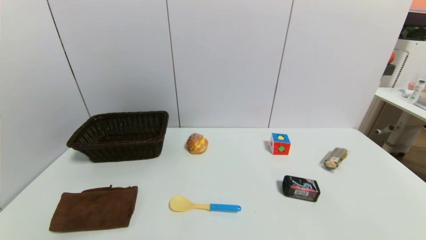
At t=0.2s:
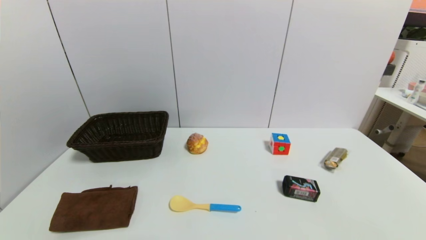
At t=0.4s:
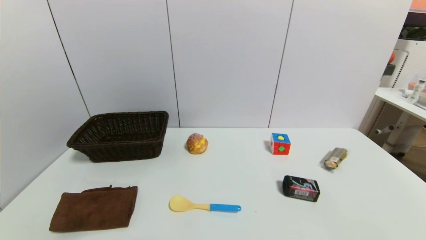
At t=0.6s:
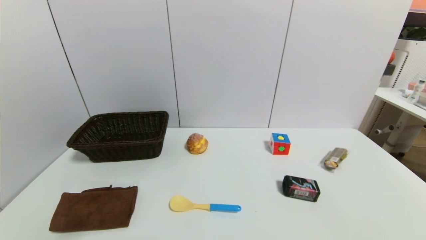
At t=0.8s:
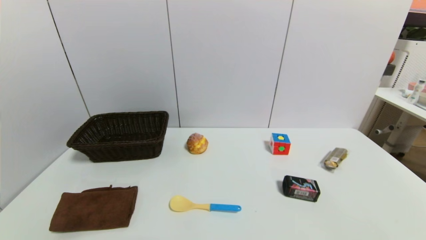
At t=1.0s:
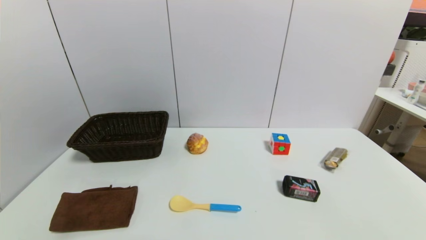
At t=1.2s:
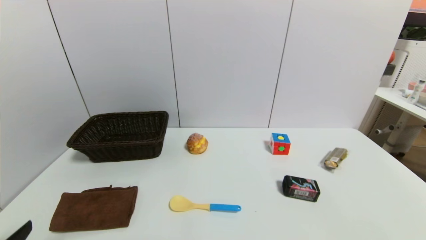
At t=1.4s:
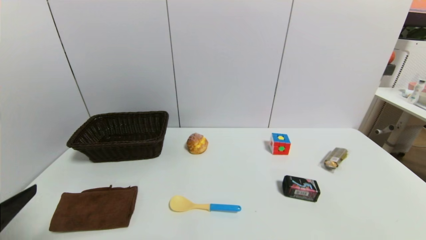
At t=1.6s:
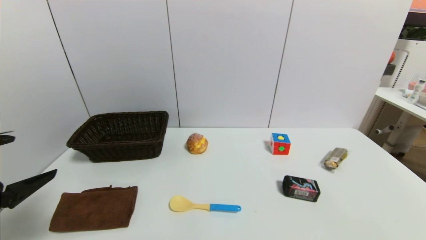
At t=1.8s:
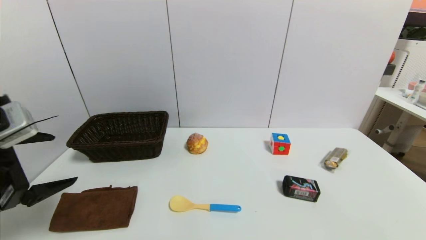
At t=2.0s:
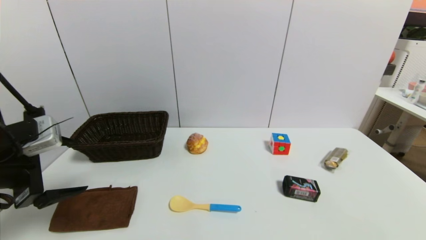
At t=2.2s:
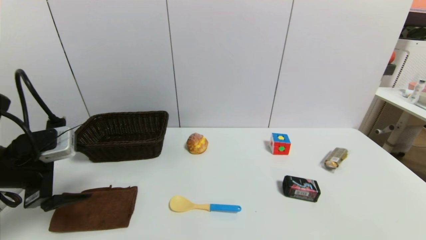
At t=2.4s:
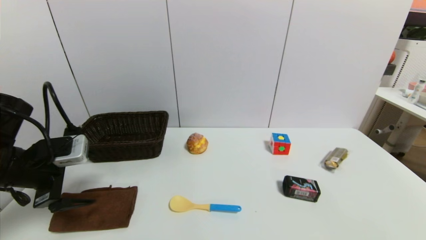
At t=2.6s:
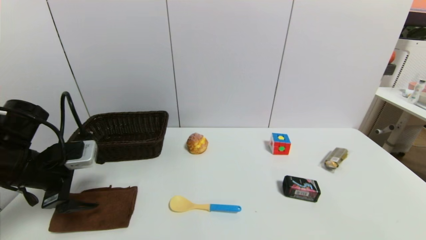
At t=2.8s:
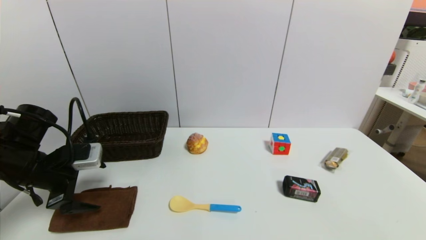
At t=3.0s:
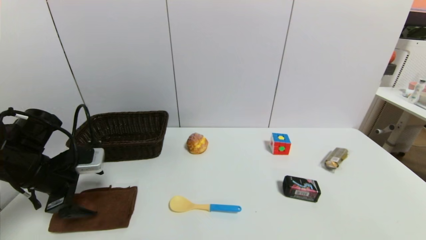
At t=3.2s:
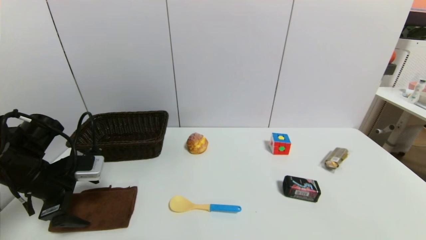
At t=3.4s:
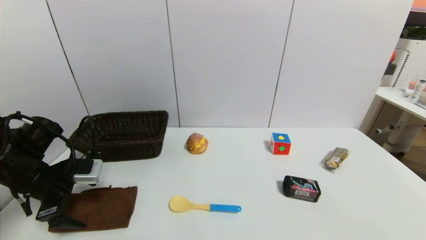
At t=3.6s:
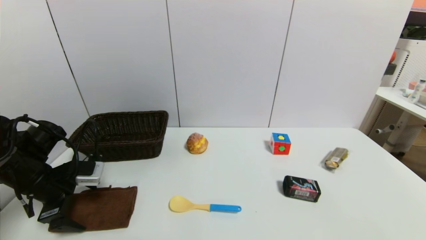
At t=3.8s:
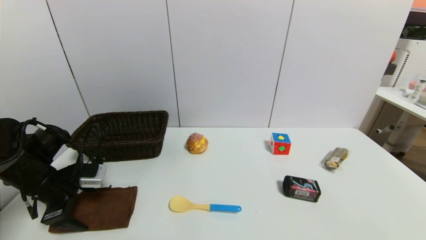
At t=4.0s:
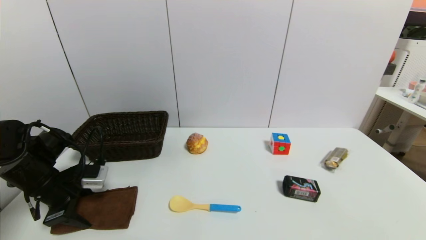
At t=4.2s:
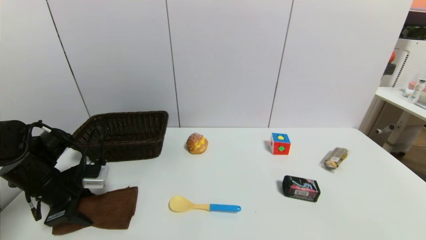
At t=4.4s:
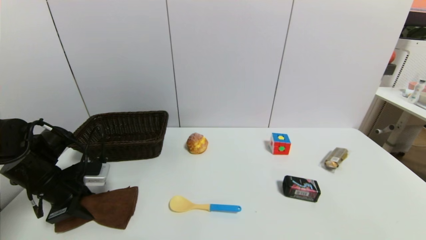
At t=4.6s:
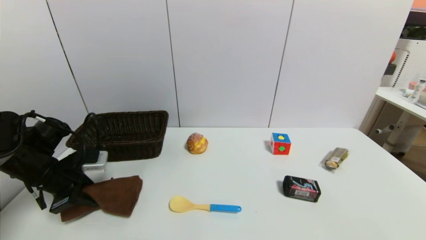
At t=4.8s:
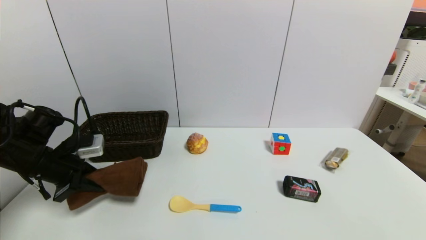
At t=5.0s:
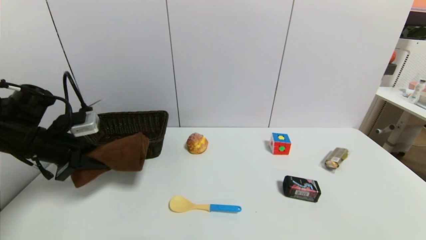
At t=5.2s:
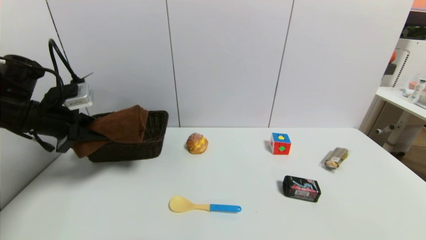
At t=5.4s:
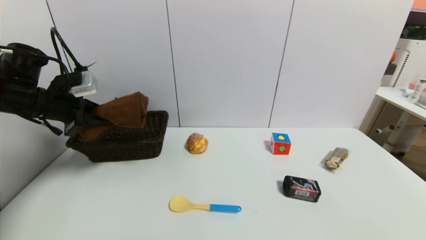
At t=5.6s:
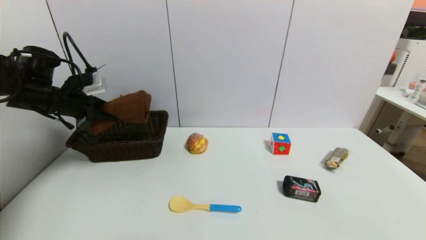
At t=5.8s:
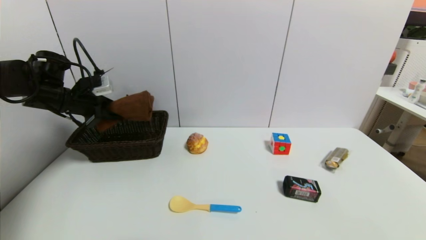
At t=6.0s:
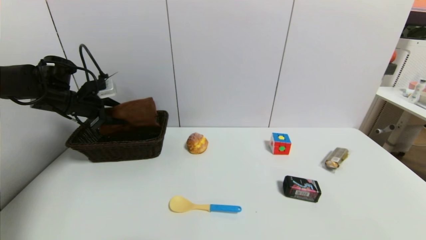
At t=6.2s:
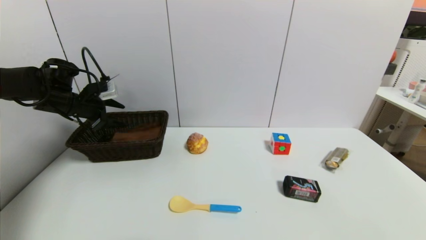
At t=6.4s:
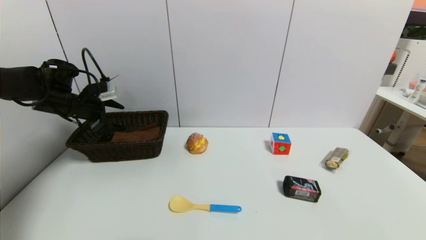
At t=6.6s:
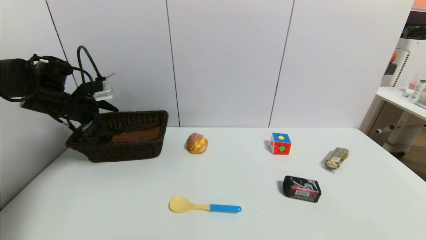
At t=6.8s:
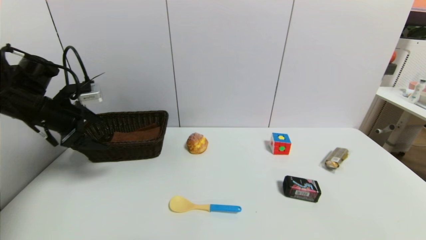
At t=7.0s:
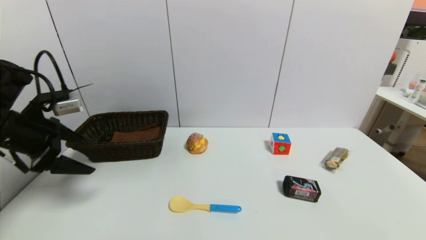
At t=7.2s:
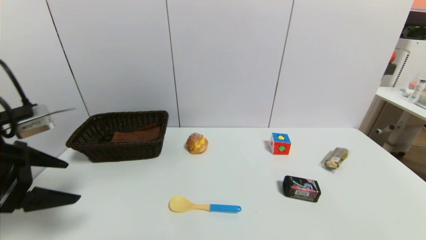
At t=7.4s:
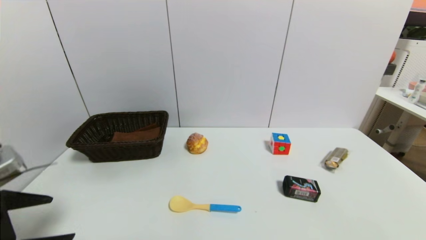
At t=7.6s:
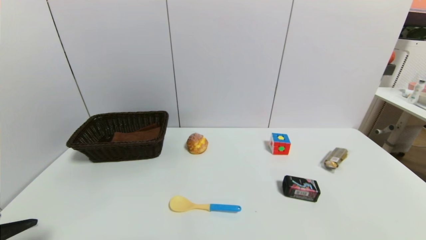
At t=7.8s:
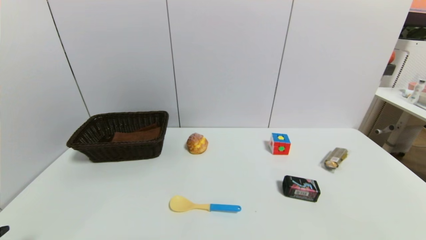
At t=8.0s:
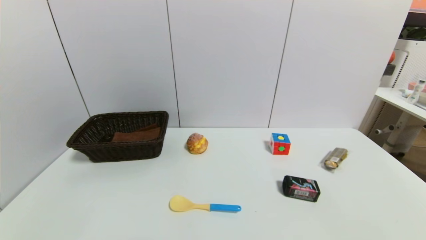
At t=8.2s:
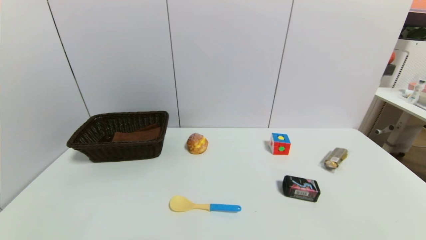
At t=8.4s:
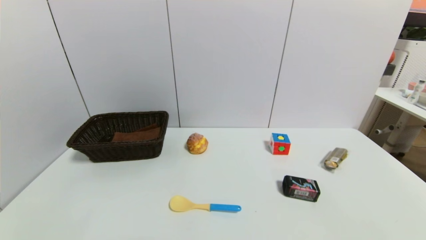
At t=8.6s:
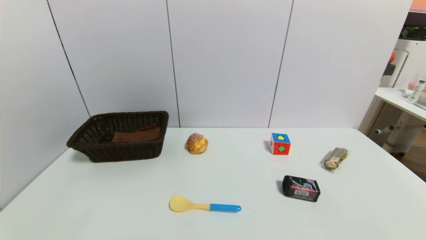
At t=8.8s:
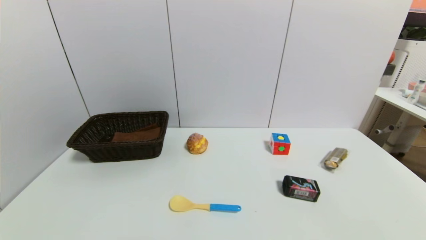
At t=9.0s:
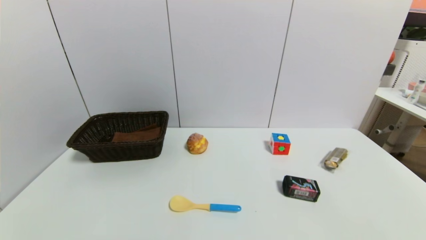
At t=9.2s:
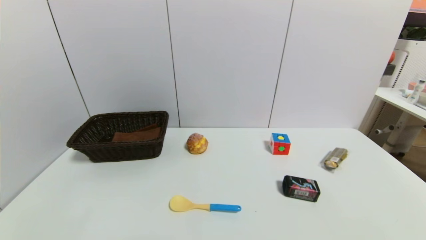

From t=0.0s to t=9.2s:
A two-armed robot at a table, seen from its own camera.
Task of the whole recording: use a gripper to pick the target object and place on the brown basket.
Step, from t=0.0s to t=4.2s: Grasp the brown towel with the left gripper.
Step, from t=4.4s to t=6.4s: Place the brown towel into the basket with the left gripper.
From t=0.0s to t=1.6s: The left gripper travels upward and forward by roughly 20 cm.
From t=1.6s to t=3.0s: The left gripper travels forward and downward by roughly 15 cm.
From t=3.0s to t=4.6s: The left gripper closes up.
From t=4.6s to t=6.2s: The left gripper heads forward and upward, covering about 15 cm, and opens its fingers.
From t=6.2s to t=7.6s: The left gripper shifts roughly 35 cm backward.
From t=7.6s to t=9.2s: The left gripper heads downward and backward, covering roughly 10 cm.
